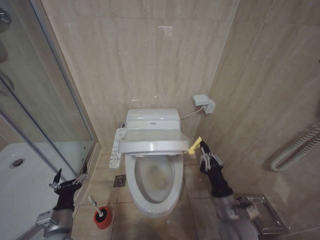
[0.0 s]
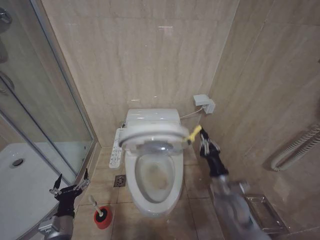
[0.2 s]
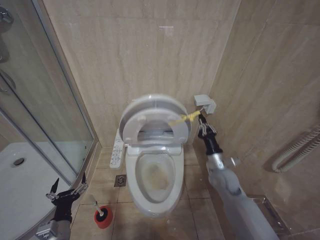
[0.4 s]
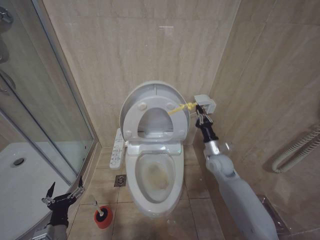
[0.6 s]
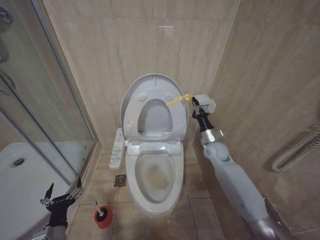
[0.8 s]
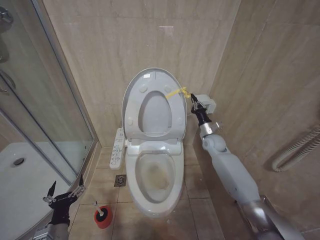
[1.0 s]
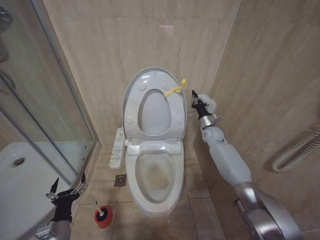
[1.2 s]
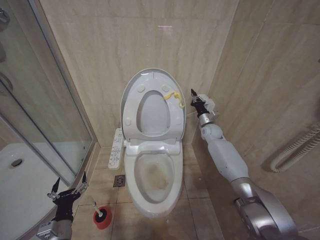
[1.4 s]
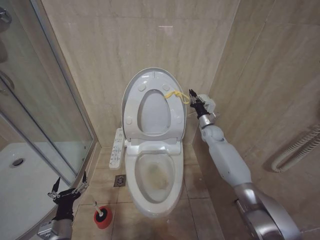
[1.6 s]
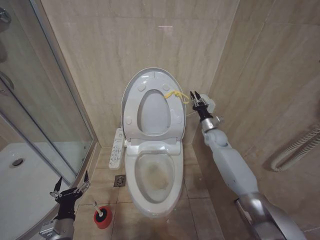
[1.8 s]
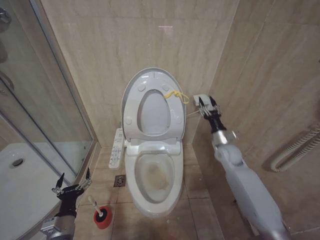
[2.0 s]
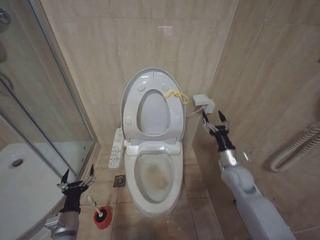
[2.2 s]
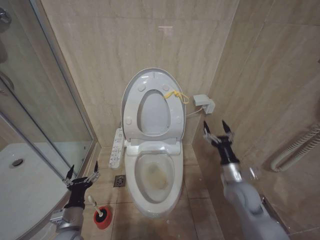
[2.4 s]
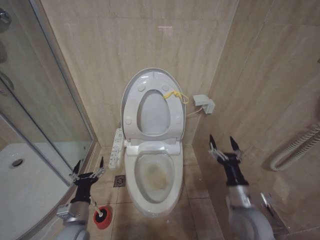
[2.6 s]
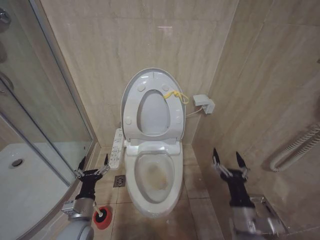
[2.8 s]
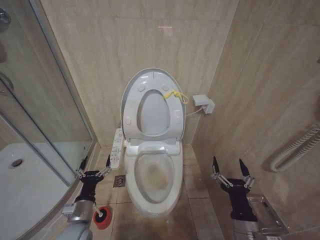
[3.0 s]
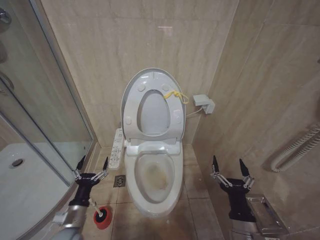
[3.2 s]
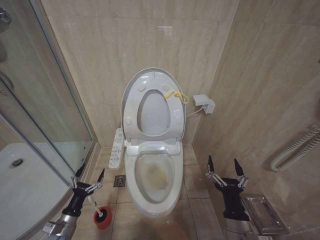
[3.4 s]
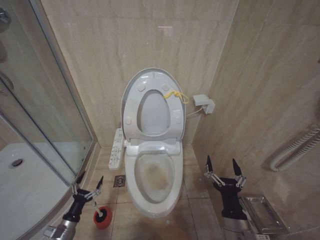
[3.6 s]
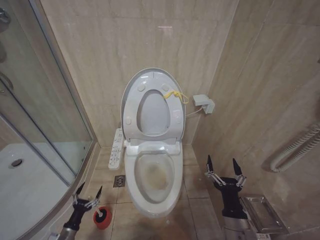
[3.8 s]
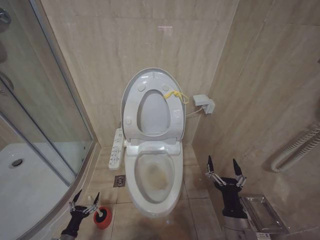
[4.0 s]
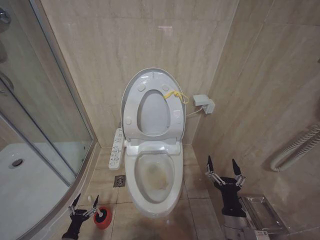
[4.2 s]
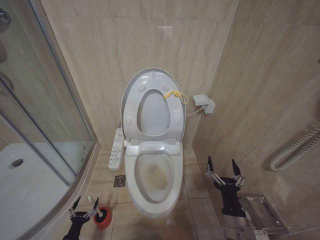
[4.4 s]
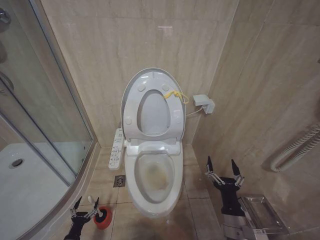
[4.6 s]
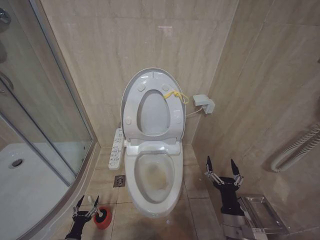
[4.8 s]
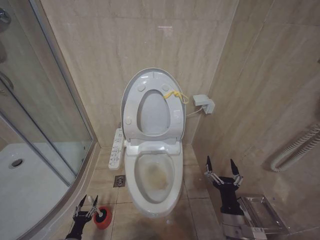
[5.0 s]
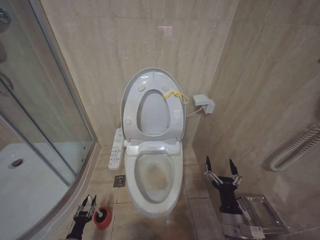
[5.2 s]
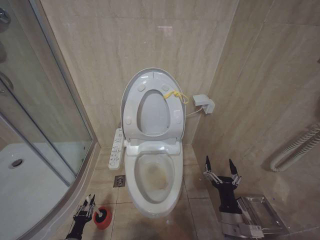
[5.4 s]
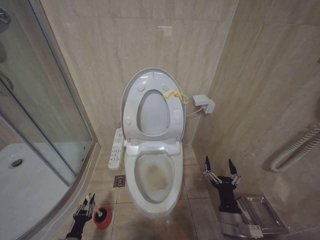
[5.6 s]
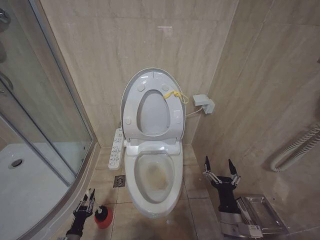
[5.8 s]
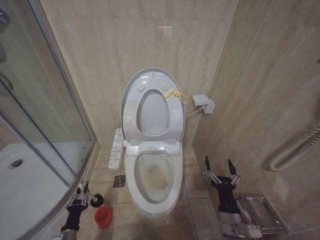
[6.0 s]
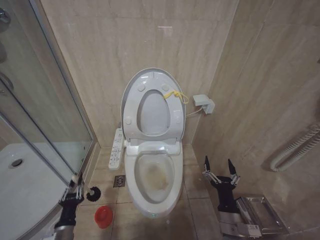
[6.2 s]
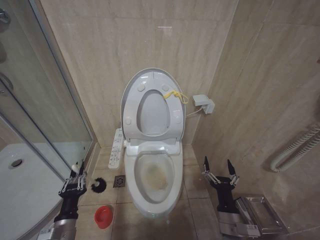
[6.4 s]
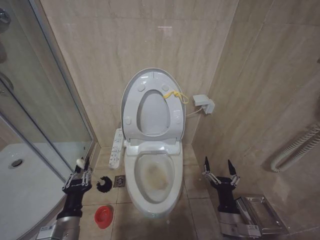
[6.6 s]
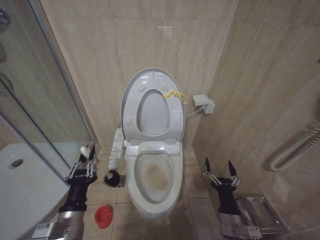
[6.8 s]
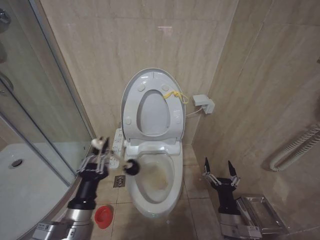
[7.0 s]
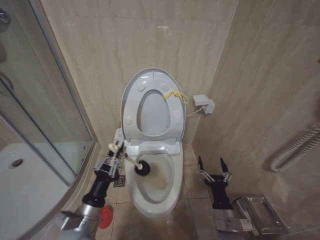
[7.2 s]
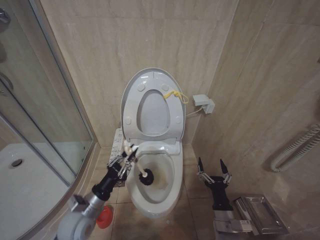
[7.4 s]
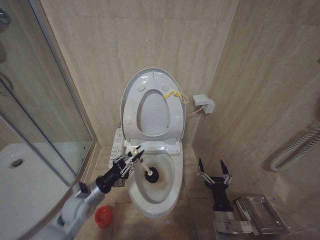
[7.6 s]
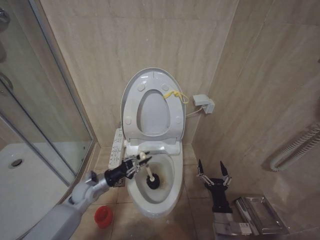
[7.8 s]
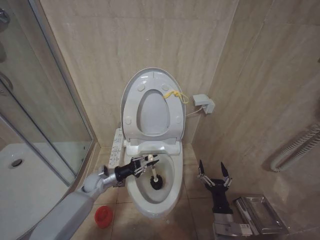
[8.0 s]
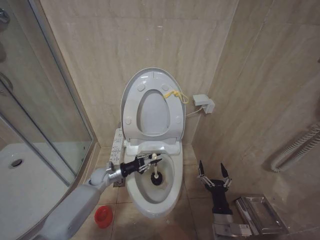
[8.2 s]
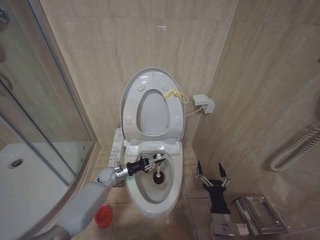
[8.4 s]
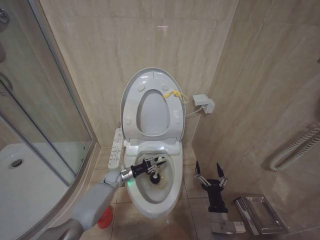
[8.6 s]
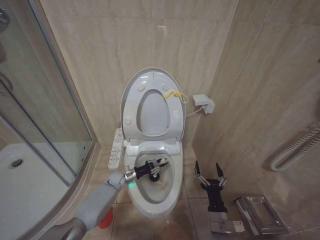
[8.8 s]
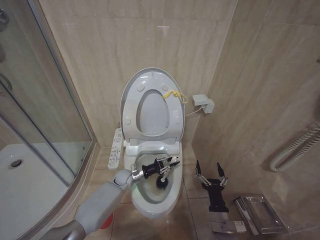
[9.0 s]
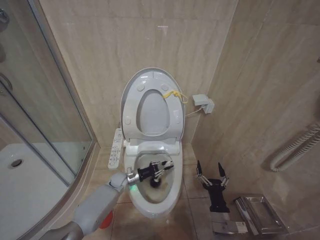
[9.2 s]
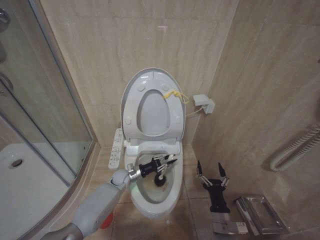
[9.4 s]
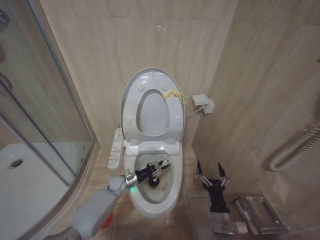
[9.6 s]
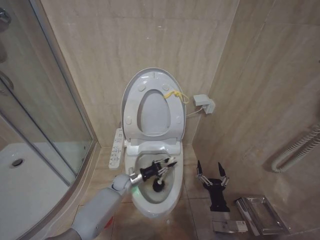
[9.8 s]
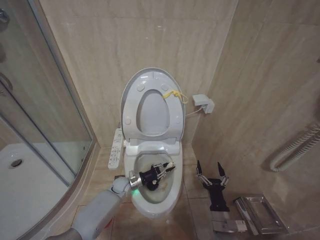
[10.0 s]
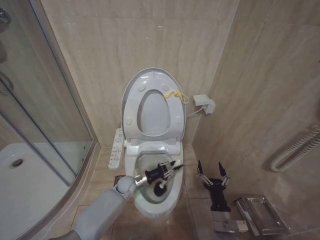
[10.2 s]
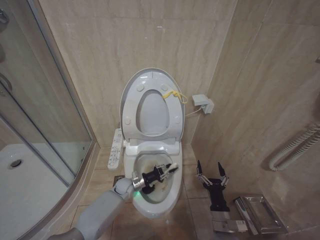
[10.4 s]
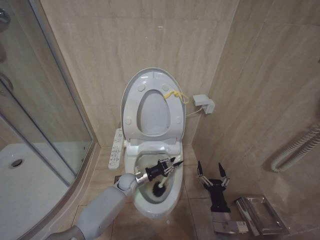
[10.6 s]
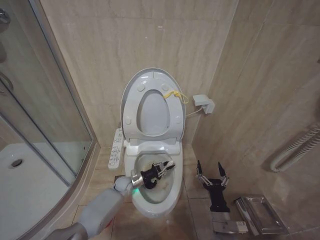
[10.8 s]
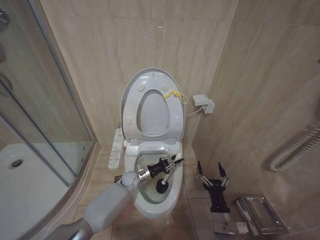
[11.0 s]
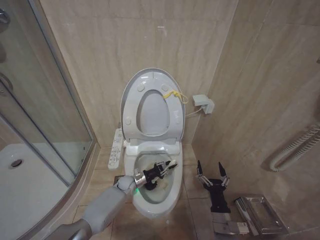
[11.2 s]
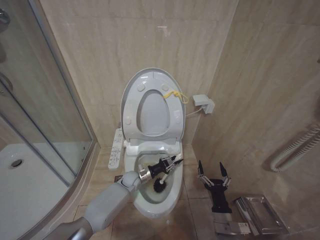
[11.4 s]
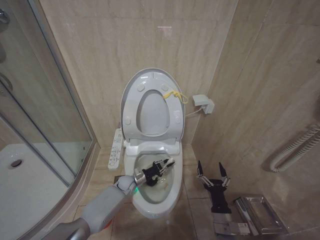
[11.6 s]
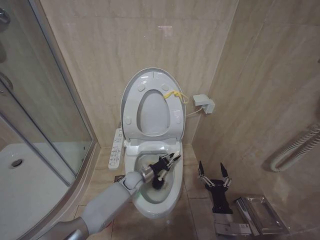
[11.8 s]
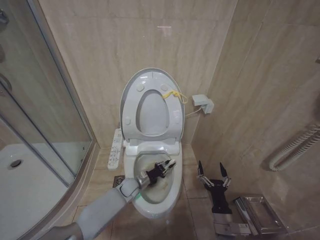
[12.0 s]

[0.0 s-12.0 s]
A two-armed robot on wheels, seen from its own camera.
Task of the whole recording: Open the toilet lid, clean the toilet bowl with a toilet brush, close the toilet lid, and flush.
0.0 to 1.6 s: The right gripper goes about 40 cm forward.
1.6 to 3.0 s: The left gripper moves to the right, some 5 cm. The right gripper is displaced backward by some 40 cm, and opens.
3.0 to 4.4 s: The left gripper is displaced downward and to the left by approximately 30 cm.
4.4 to 6.0 s: The left gripper shifts approximately 5 cm upward, and closes.
6.0 to 7.6 s: The left gripper goes about 25 cm upward, to the right and forward.
7.6 to 9.0 s: The left gripper travels forward, downward and to the right by some 25 cm.
9.0 to 10.4 s: There are only small adjustments of the grippers.

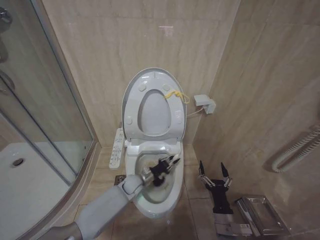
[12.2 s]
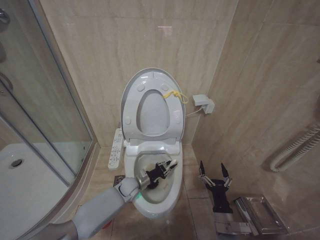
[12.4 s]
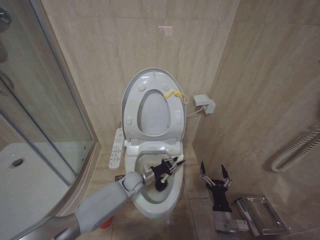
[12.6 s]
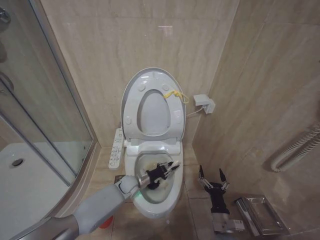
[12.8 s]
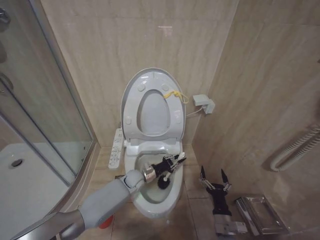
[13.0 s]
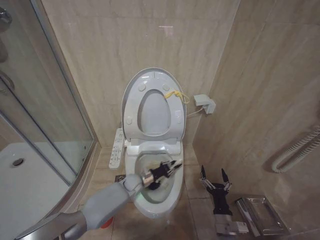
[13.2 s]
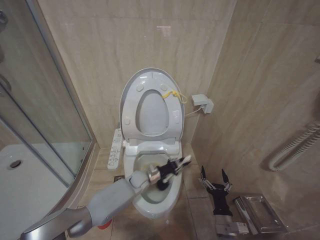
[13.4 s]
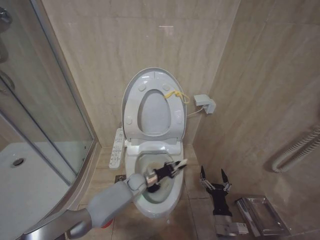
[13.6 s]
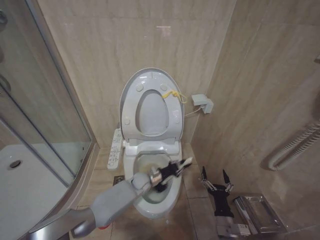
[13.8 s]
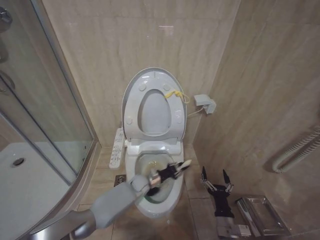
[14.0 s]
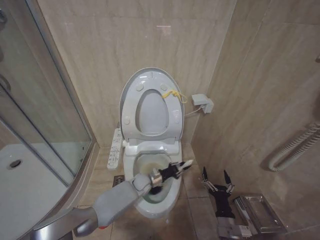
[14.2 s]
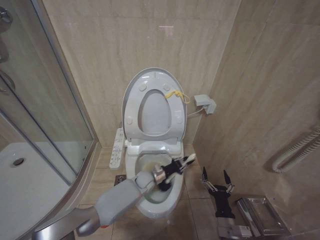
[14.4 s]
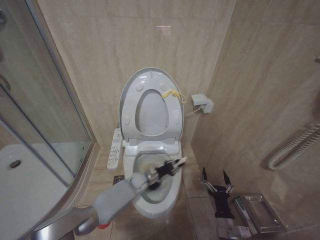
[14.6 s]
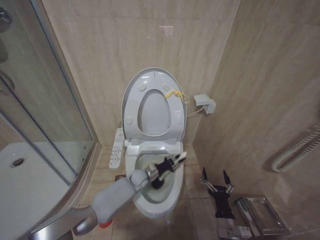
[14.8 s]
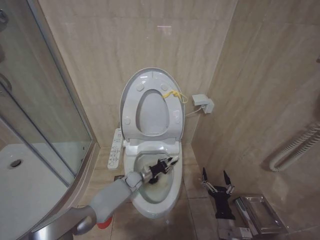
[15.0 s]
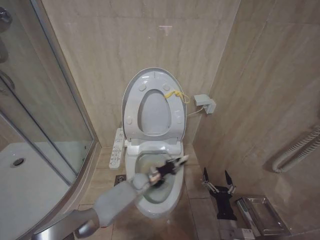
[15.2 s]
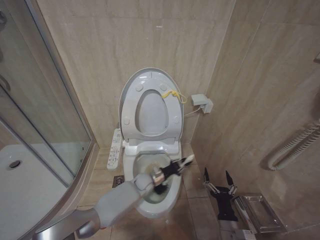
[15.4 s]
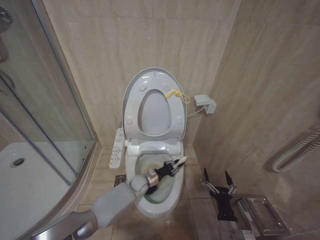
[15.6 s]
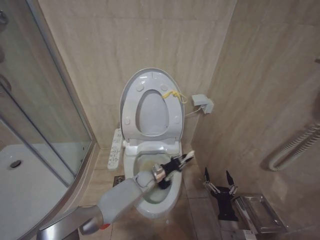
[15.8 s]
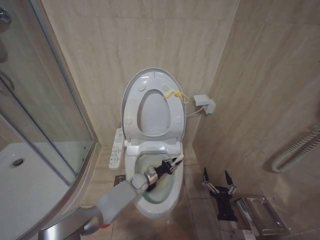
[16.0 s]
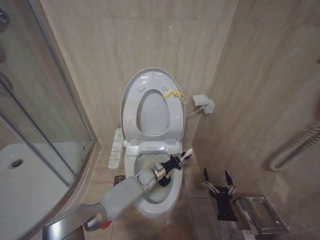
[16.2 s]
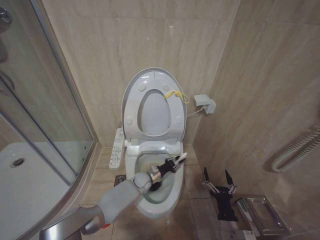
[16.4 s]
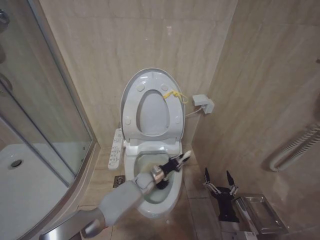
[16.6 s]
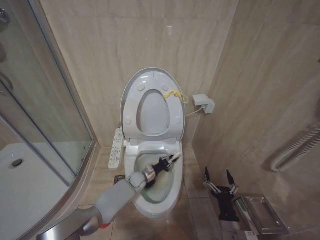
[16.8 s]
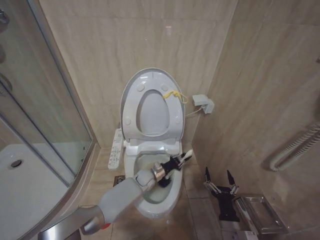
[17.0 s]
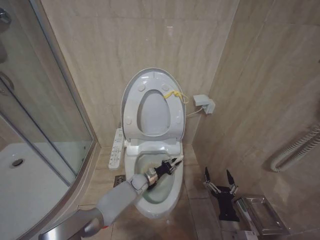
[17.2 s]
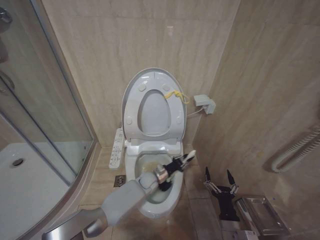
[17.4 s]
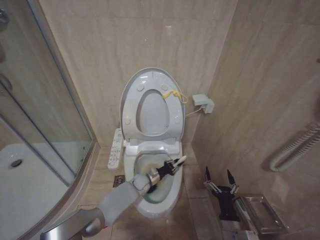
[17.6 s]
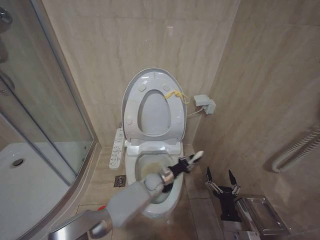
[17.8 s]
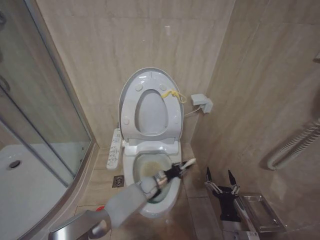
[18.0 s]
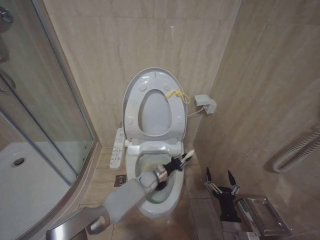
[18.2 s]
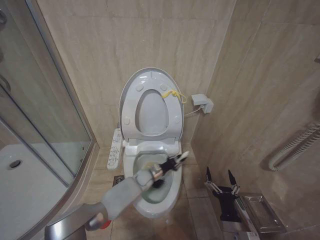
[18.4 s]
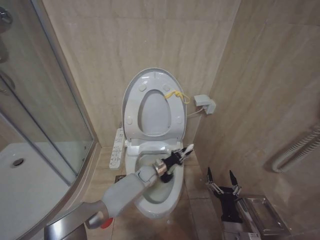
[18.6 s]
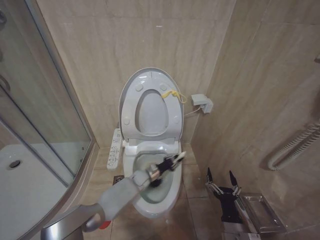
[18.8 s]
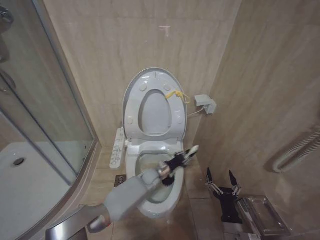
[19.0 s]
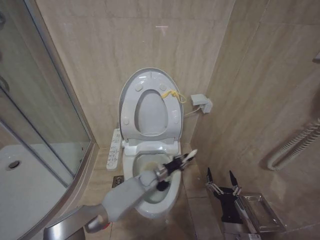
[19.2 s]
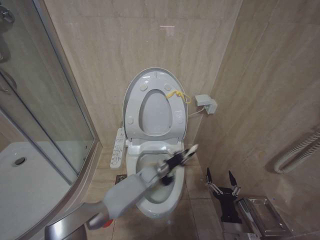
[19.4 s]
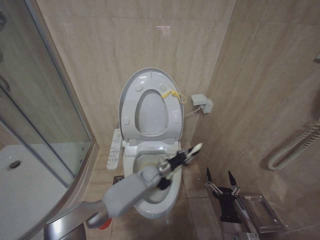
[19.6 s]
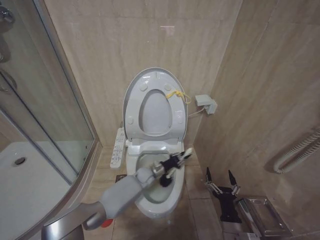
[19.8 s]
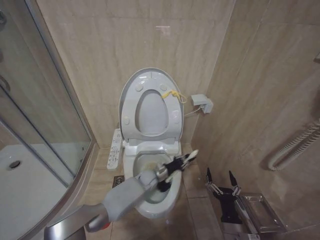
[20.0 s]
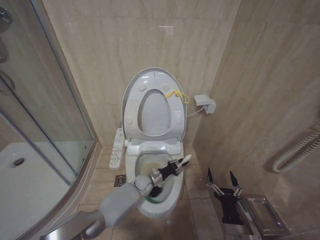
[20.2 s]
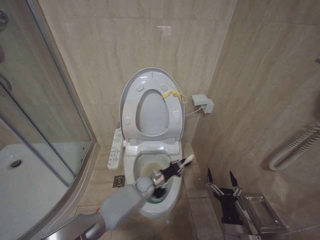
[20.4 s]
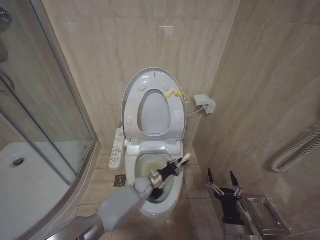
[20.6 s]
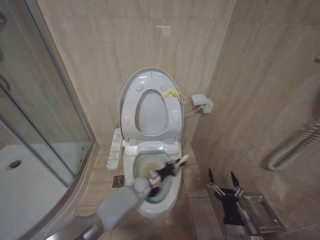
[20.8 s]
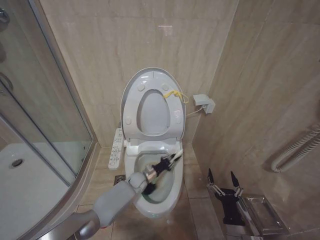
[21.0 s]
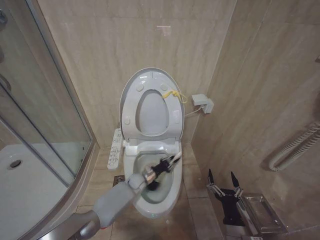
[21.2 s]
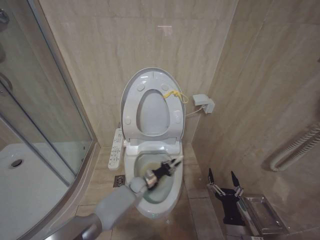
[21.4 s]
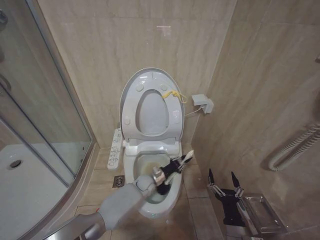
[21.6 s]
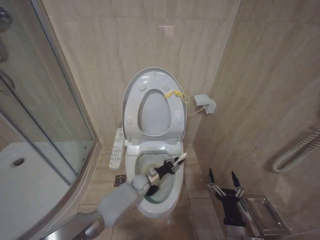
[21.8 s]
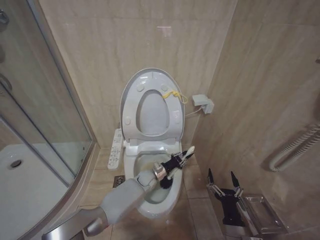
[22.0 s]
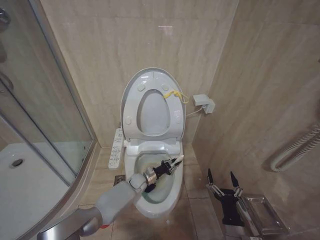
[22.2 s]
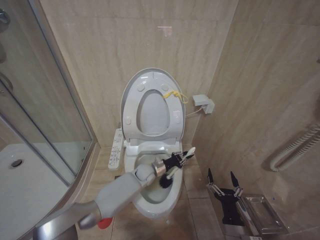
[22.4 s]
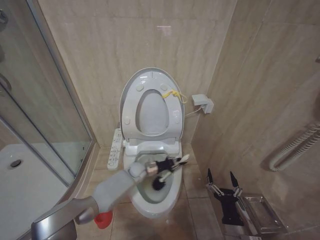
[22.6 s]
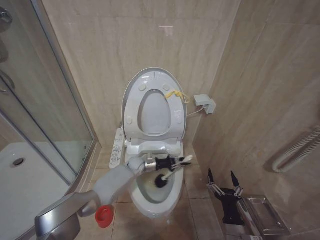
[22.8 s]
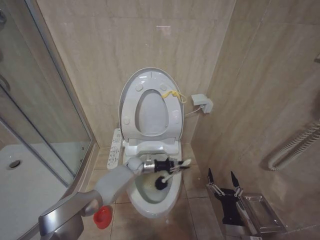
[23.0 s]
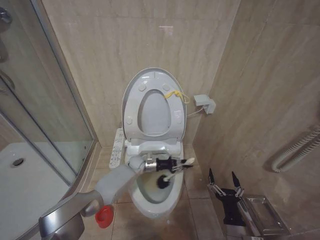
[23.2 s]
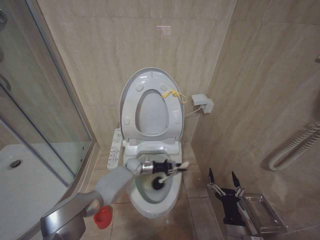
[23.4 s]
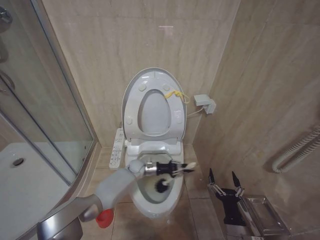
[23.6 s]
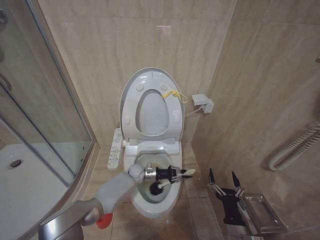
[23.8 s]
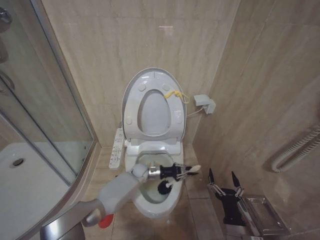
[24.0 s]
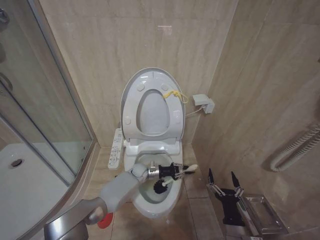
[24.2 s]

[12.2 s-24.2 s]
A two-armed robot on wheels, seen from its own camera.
Task of the whole recording: Open the toilet lid, clean the toilet bowl with a toilet brush, close the toilet lid, and flush.
12.2 to 13.8 s: The left gripper heads to the right, covering roughly 5 cm.
13.8 to 15.2 s: The left gripper travels downward by roughly 5 cm.
15.2 to 16.6 s: The left gripper moves left and right over approximately 5 cm, changing direction 2 times.
16.6 to 18.2 s: The left gripper travels to the left and back again, about 5 cm each way.
18.2 to 19.8 s: The left gripper goes up and down, some 10 cm each way, reversing 3 times.
19.8 to 21.2 s: The left gripper reaches some 5 cm to the right, then returns.
21.2 to 22.6 s: The left gripper swings up and down, some 10 cm each way, with 3 reversals.
